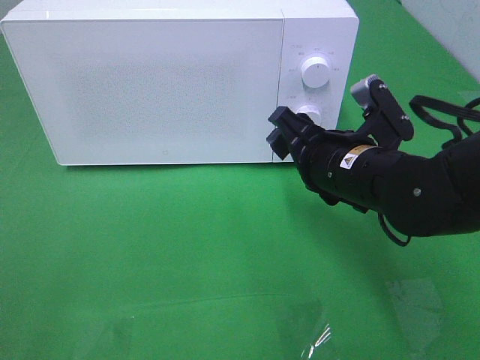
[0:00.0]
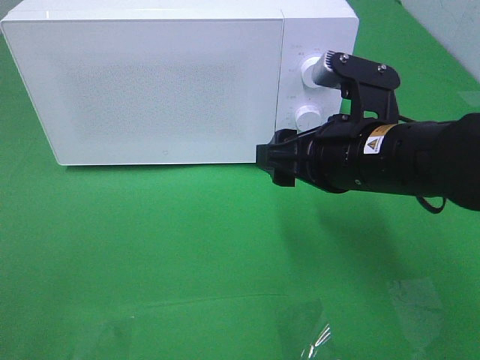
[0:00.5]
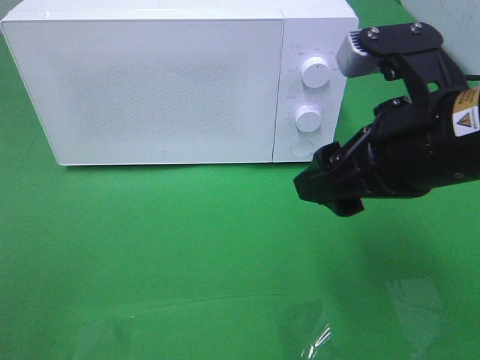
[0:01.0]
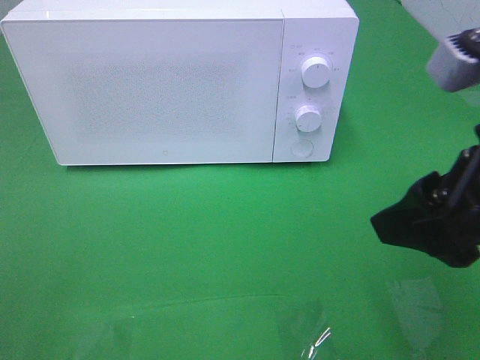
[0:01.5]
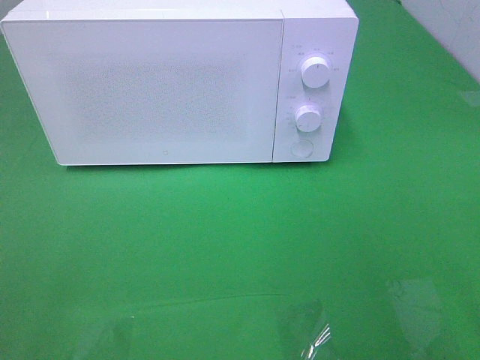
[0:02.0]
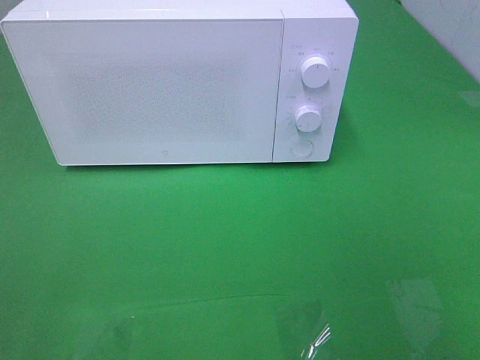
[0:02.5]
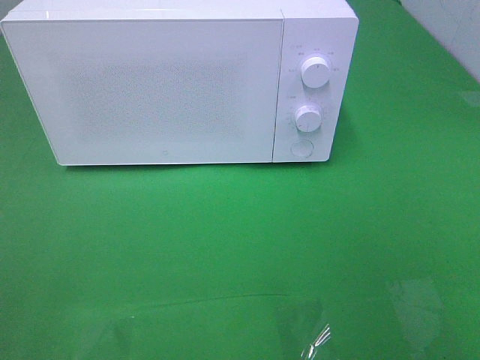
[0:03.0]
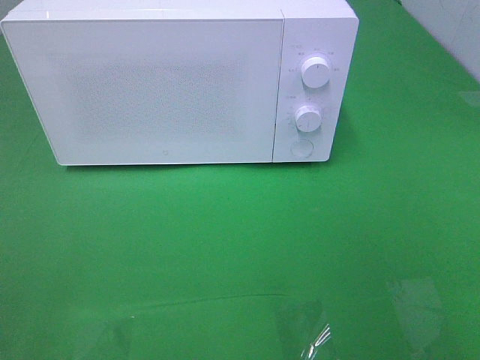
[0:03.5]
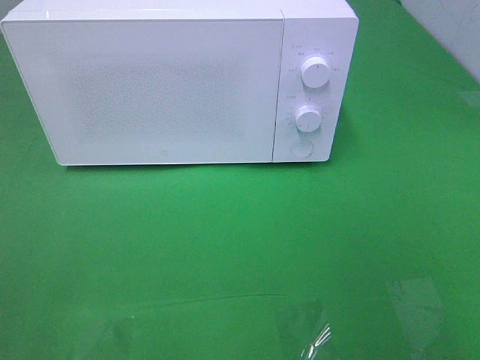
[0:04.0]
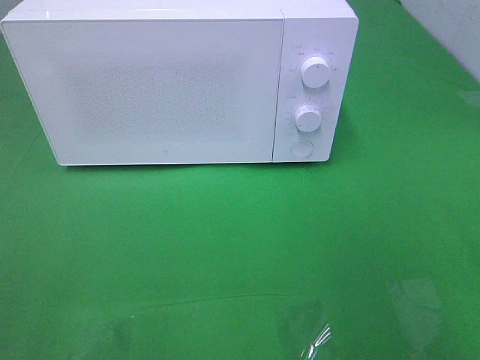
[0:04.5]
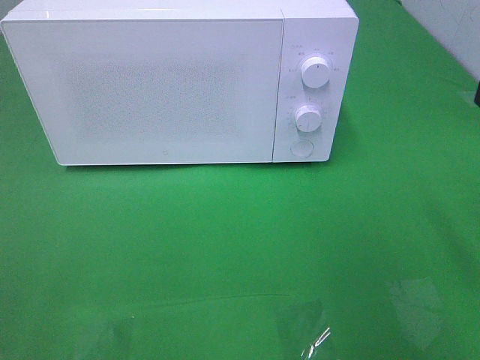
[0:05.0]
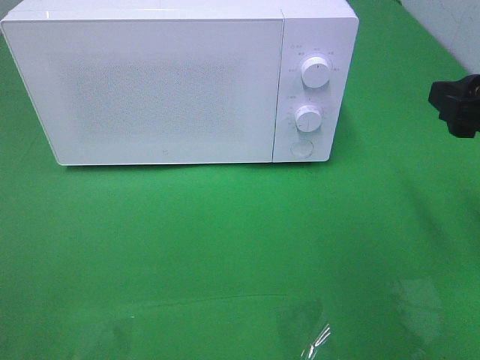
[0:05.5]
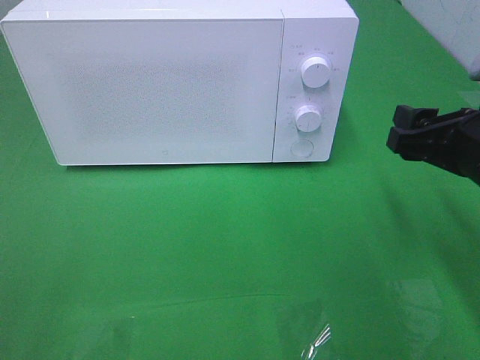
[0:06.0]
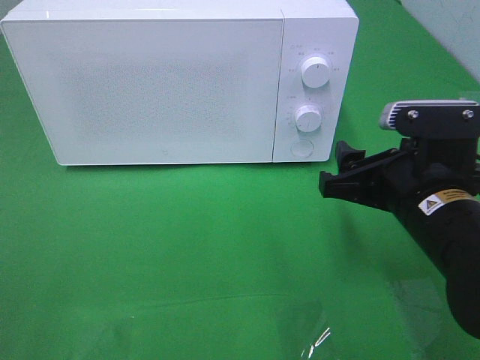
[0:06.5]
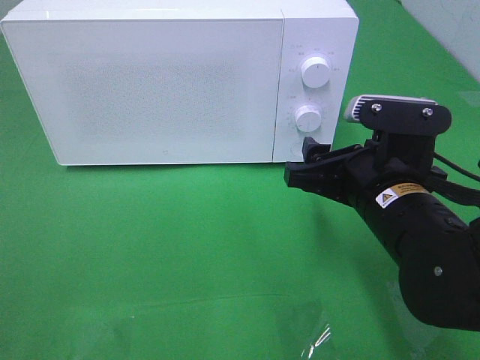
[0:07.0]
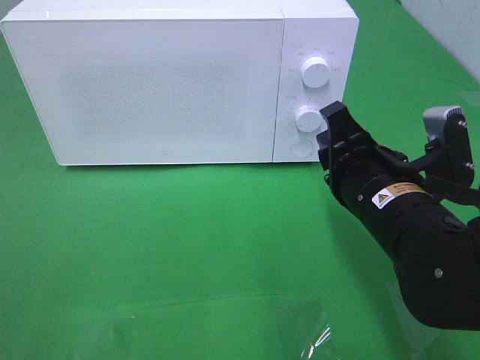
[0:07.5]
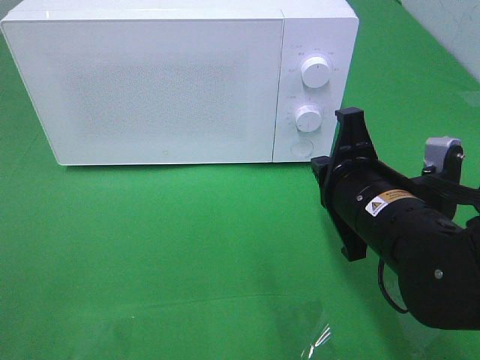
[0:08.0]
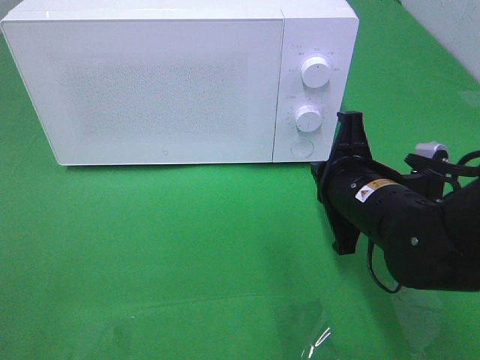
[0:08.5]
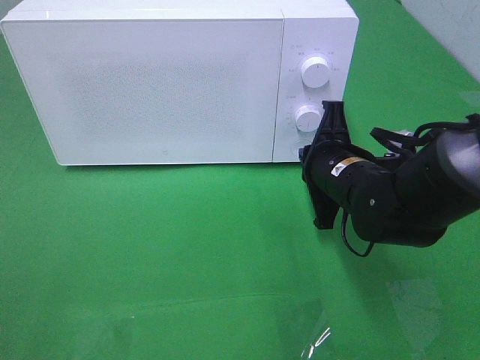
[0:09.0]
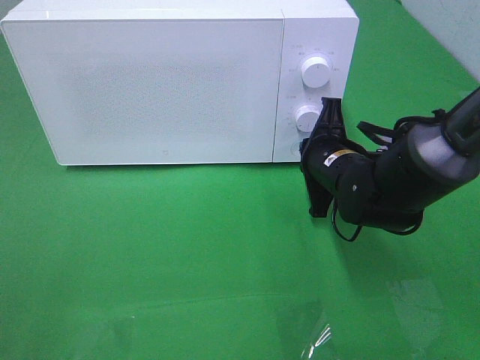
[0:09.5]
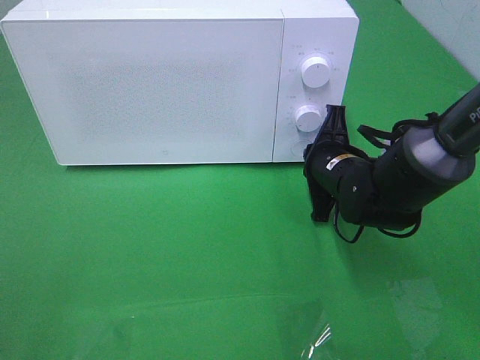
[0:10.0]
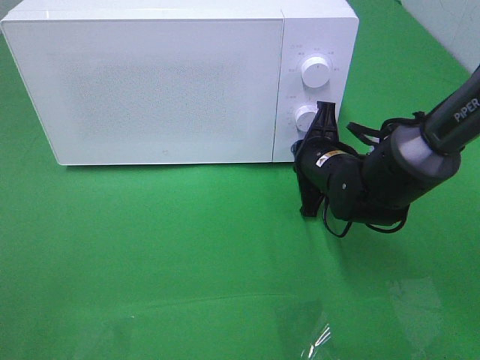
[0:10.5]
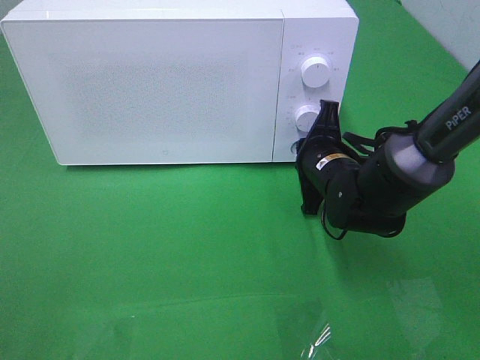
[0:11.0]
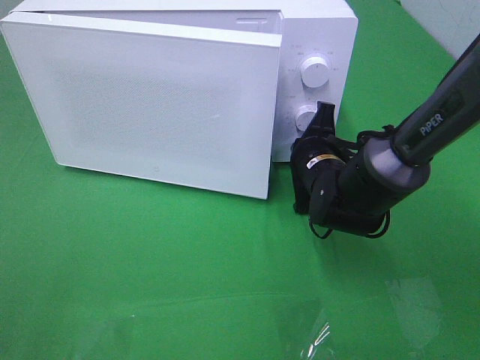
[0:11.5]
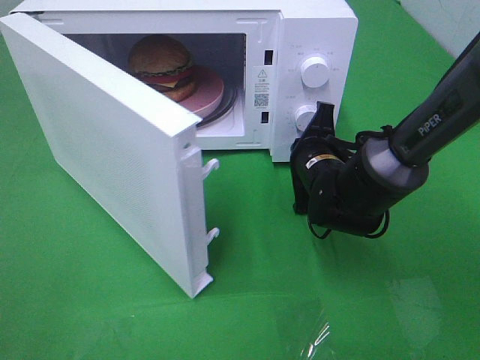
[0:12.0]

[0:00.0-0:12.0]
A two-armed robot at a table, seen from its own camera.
Task of the whole recording: Heat the burger.
0.0 to 2.0 s: The right gripper shifts approximately 30 cm backward, upward and to the right.
4.0 to 6.0 s: The right gripper is displaced forward and downward by approximately 25 cm.
6.0 to 8.0 s: The right gripper shifts about 10 cm to the left, and closes its fingers.
8.0 to 10.0 s: The right gripper heads forward and downward, covering roughly 15 cm.

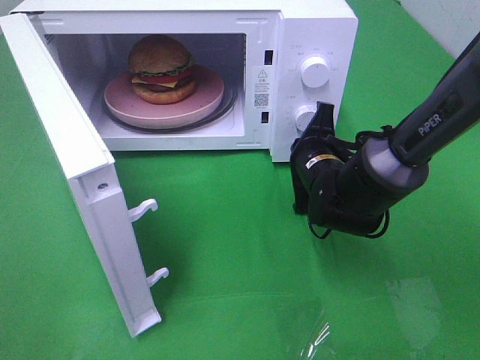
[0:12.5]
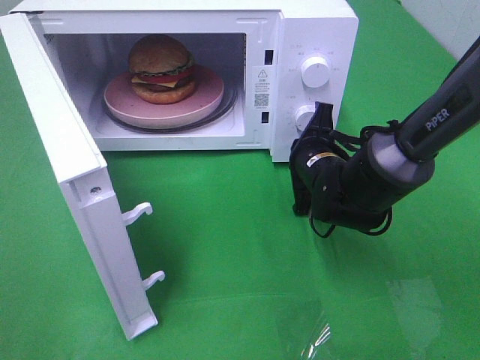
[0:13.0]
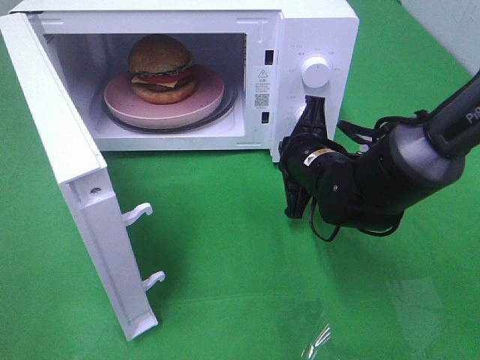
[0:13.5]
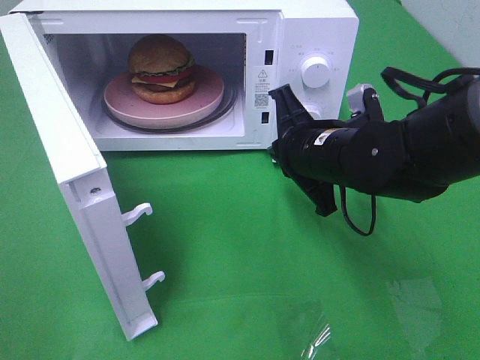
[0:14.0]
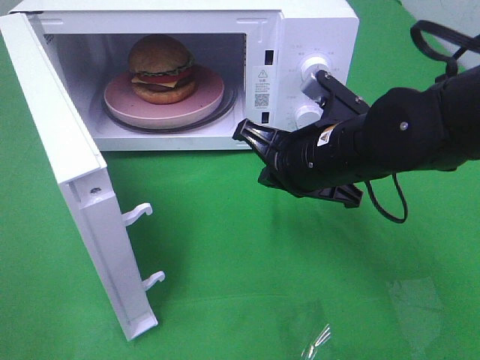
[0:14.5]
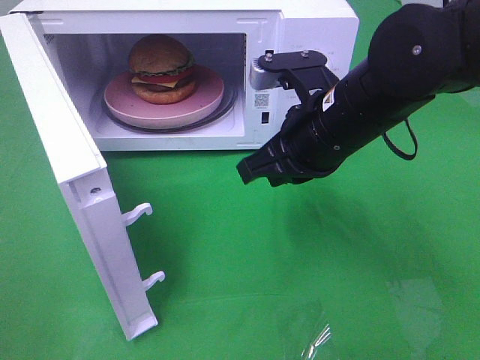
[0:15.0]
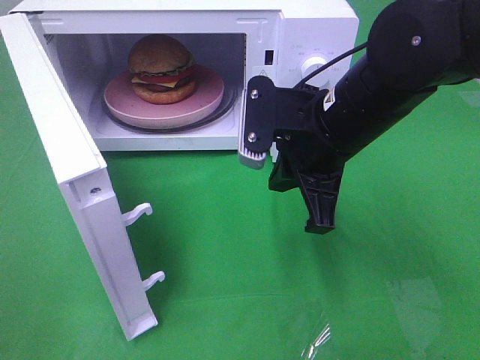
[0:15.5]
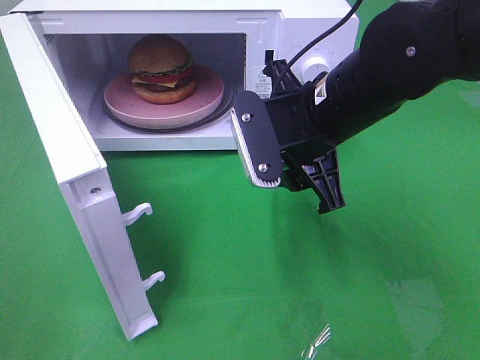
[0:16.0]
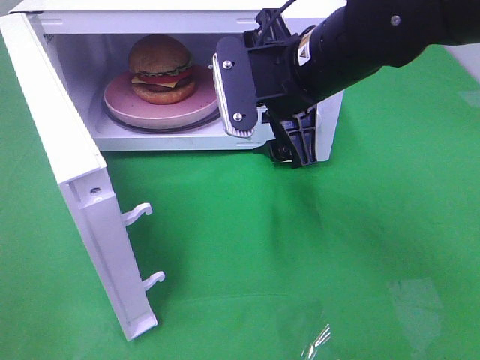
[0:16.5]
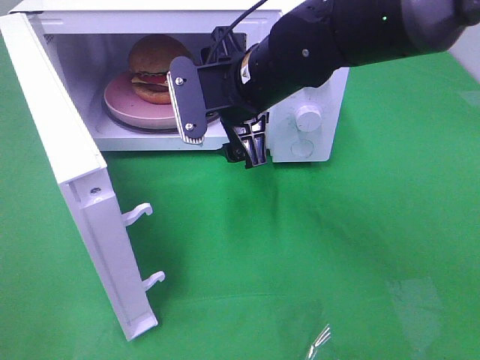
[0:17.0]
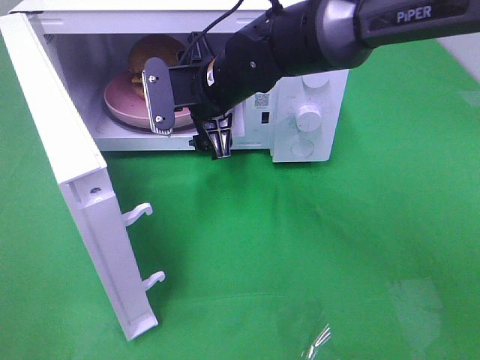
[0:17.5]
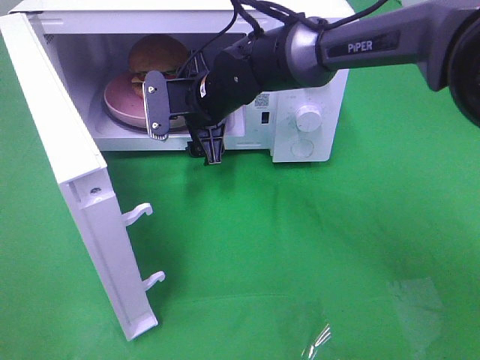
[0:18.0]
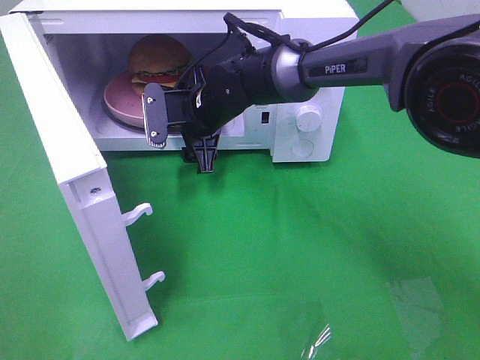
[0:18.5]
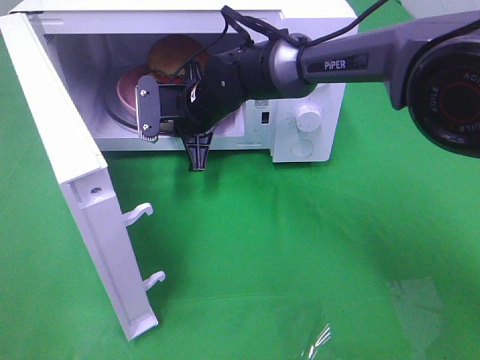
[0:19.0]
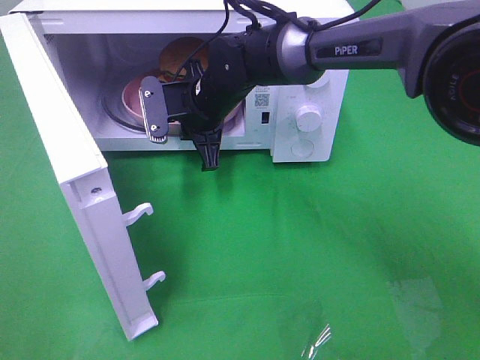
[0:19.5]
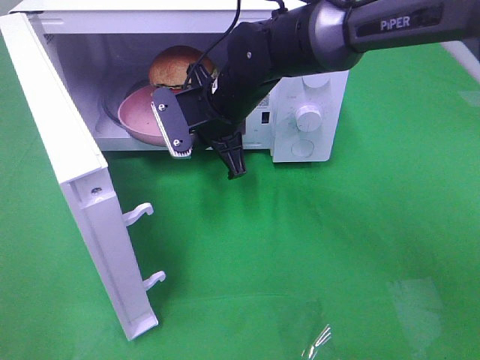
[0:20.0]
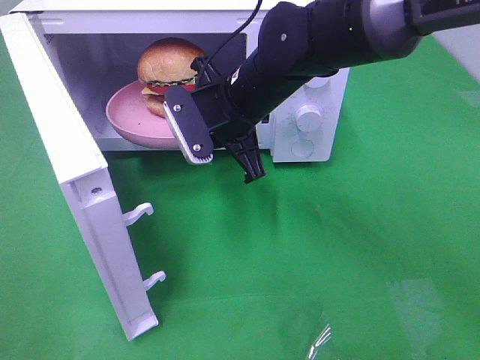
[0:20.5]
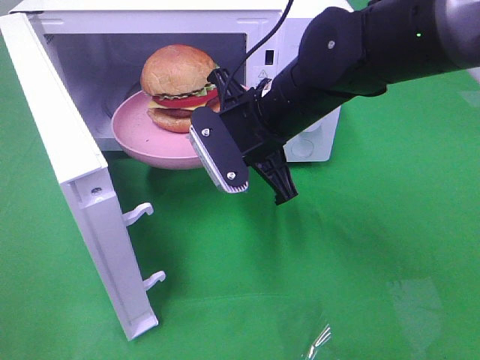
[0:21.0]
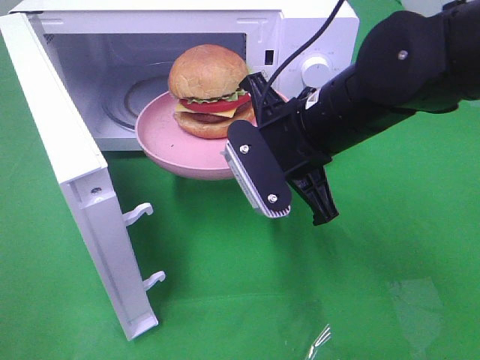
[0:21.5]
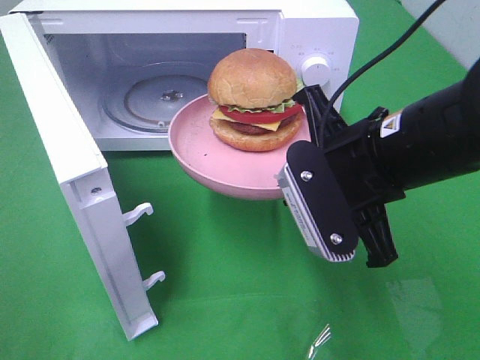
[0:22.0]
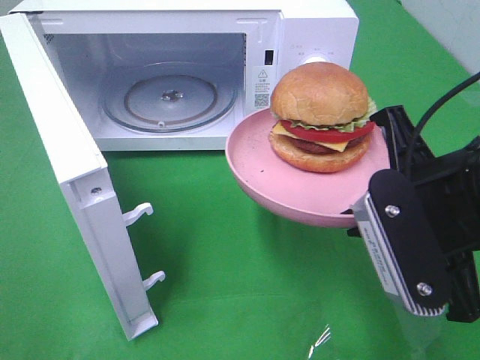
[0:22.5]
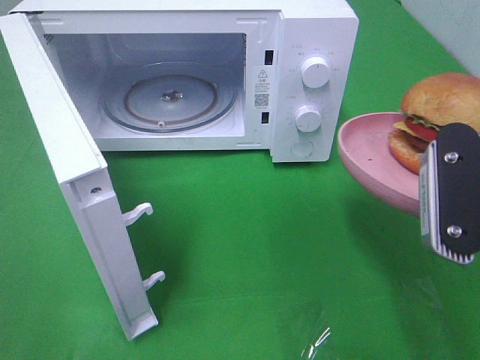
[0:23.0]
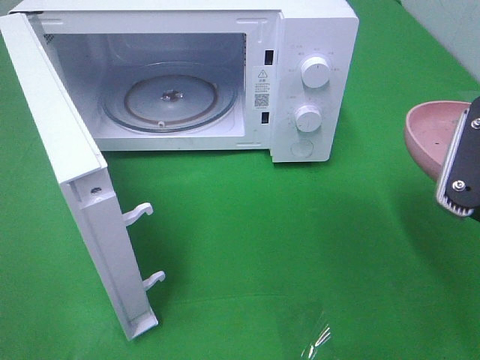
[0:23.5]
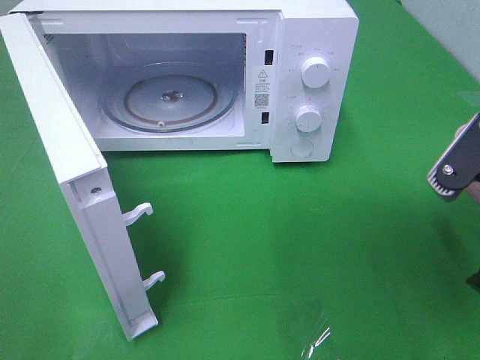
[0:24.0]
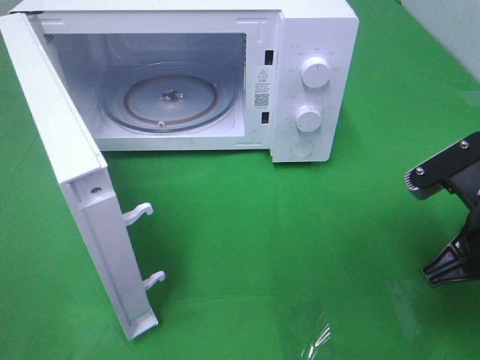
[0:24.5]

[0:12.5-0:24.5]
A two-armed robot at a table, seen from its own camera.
Task of the whole recording: Heat the burger.
Step, 14.0 to 19.0 s: Right hand: grab the plate with the hamburger.
12.5 to 14.5 s: The right gripper heads upward and backward, covering roughly 10 cm.
14.5 to 16.5 s: The right gripper heads upward, covering about 5 cm, and opens.
16.5 to 18.5 s: The right gripper shifts roughly 20 cm downward, forward and to the left.
18.5 to 20.5 s: The right gripper is displaced backward, upward and to the right by some 10 cm, and closes up.
20.5 to 22.5 s: The right gripper travels backward and to the right by approximately 25 cm.
22.5 to 24.5 s: The right gripper heads downward, covering about 5 cm.

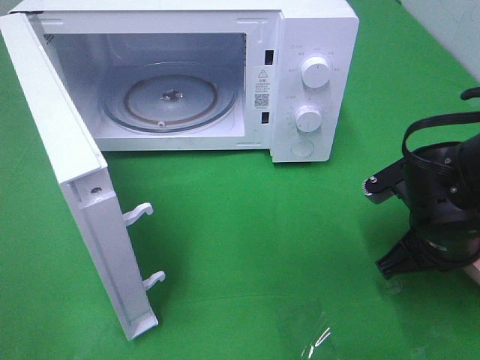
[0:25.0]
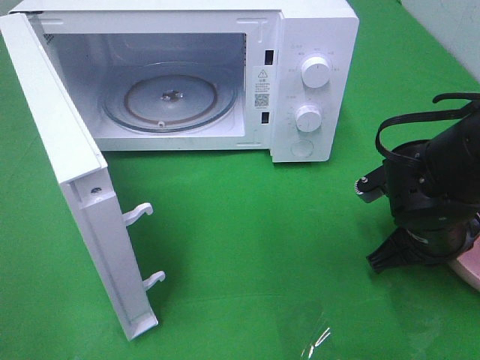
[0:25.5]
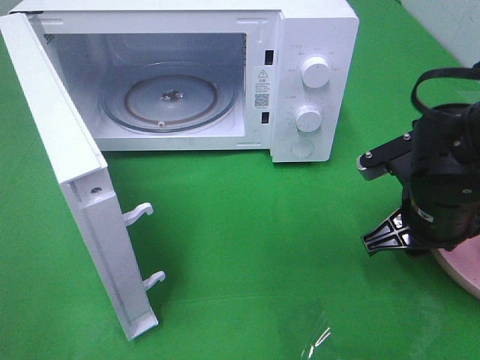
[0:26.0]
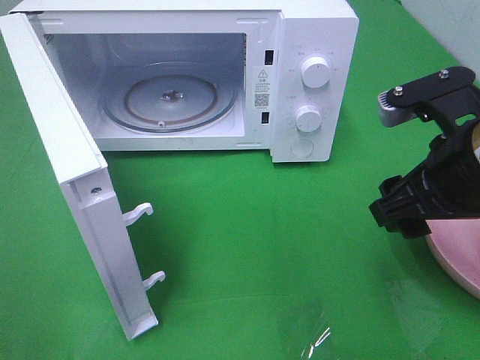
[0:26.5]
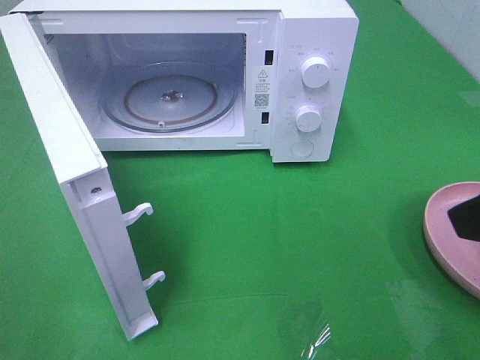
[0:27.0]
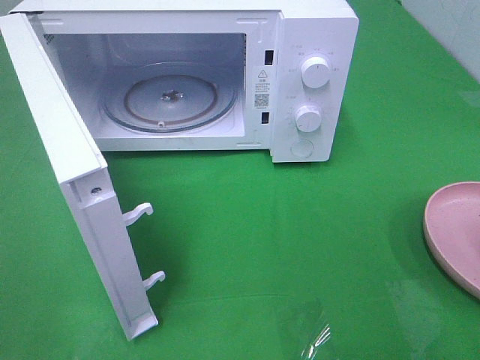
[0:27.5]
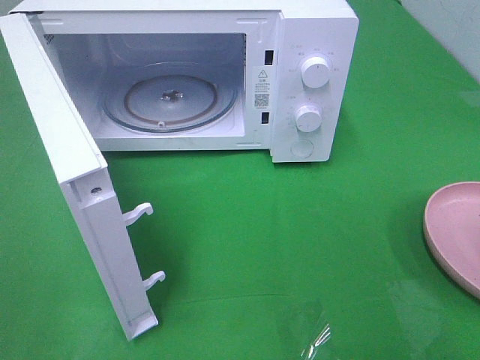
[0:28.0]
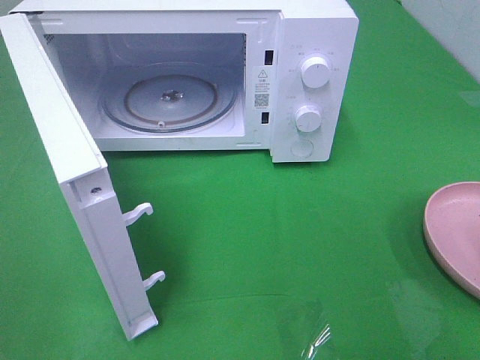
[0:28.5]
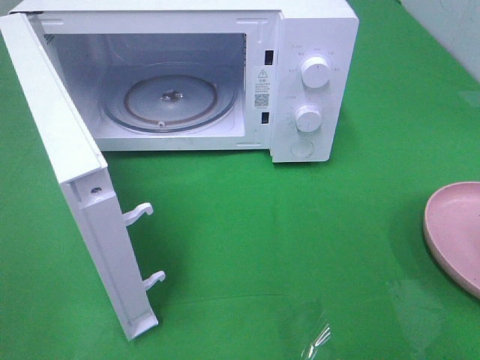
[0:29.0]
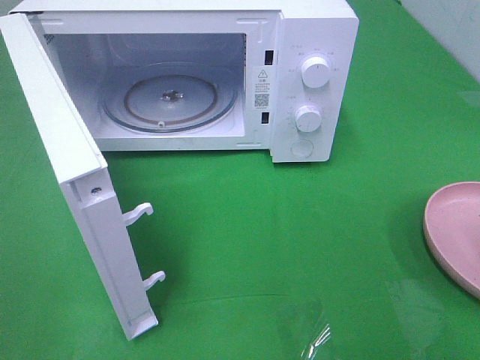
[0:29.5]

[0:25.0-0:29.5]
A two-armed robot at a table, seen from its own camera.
Task of the whole recording: Heat the burger.
25.0 to 27.0 s: The right gripper travels upward and backward by approximately 20 cm, and opens.
27.0 to 29.5 s: The right gripper shifts roughly 15 cm backward and to the right.
